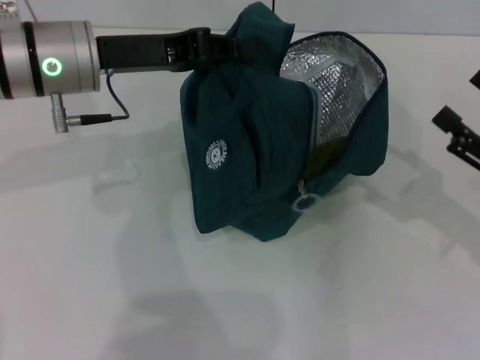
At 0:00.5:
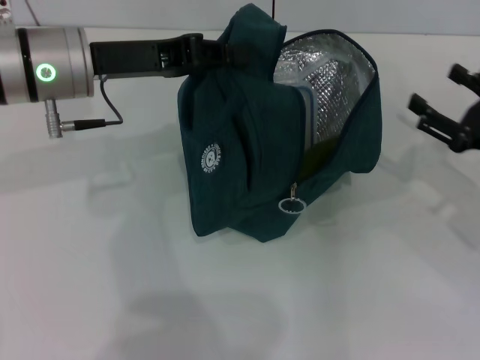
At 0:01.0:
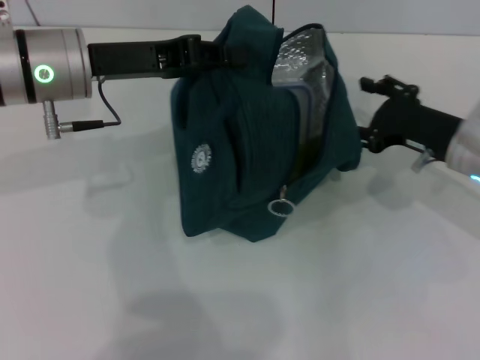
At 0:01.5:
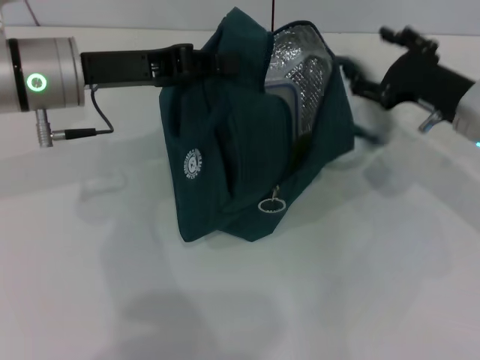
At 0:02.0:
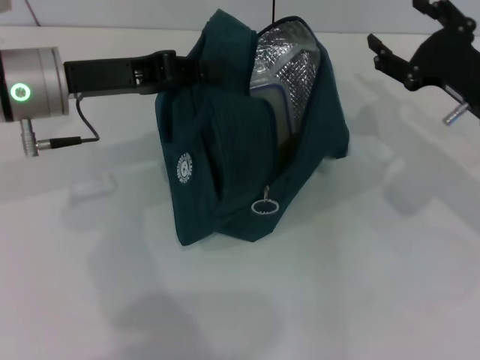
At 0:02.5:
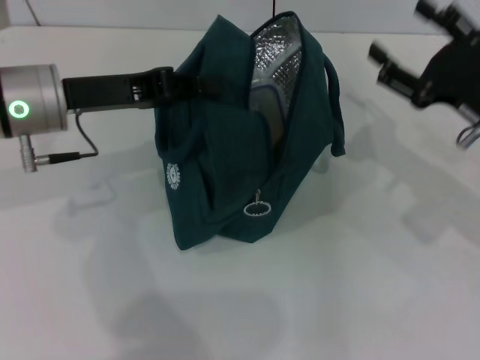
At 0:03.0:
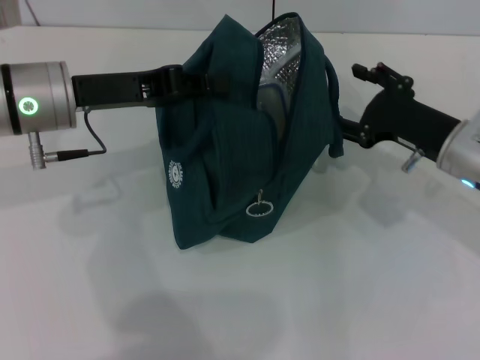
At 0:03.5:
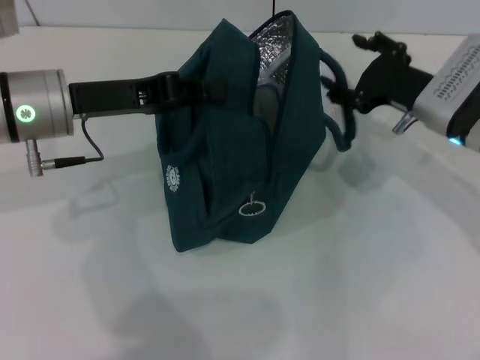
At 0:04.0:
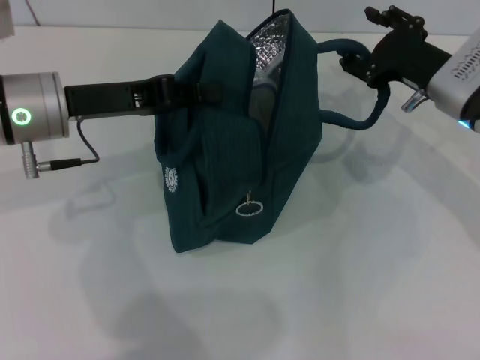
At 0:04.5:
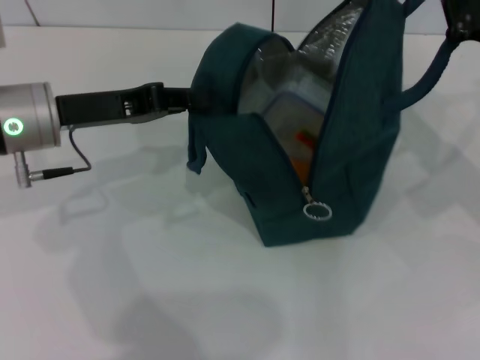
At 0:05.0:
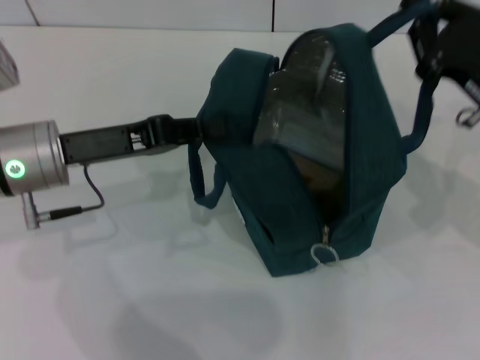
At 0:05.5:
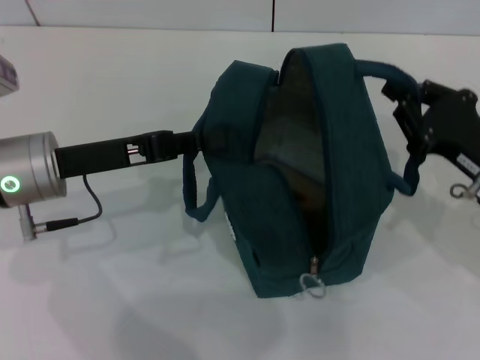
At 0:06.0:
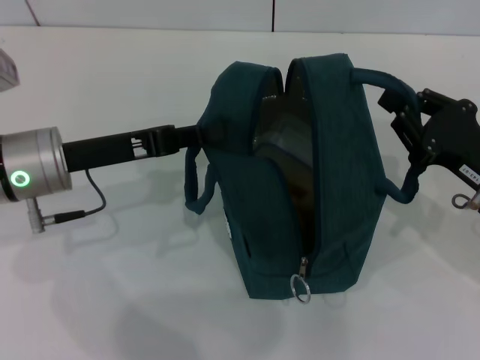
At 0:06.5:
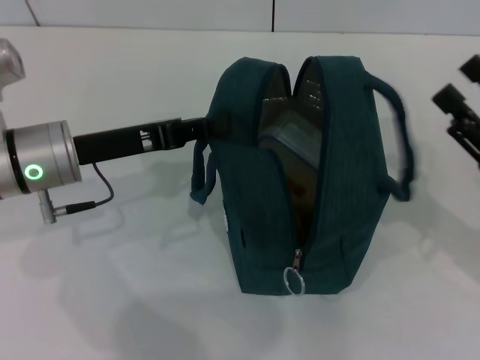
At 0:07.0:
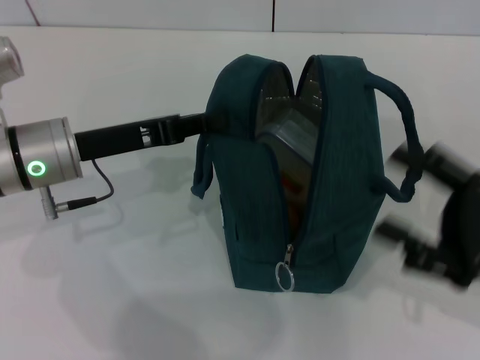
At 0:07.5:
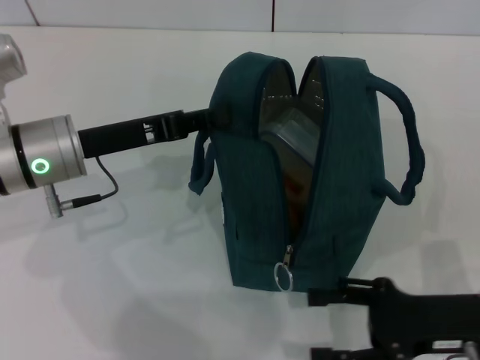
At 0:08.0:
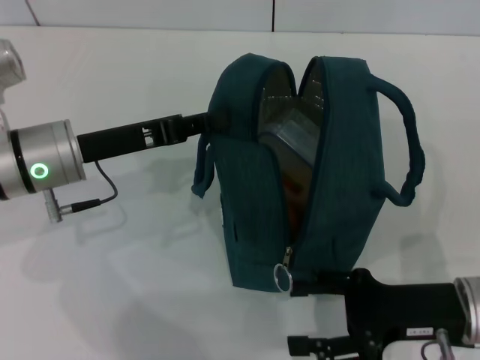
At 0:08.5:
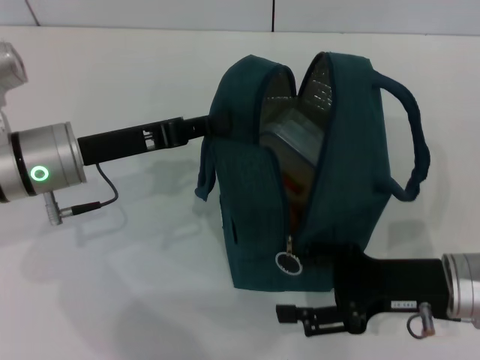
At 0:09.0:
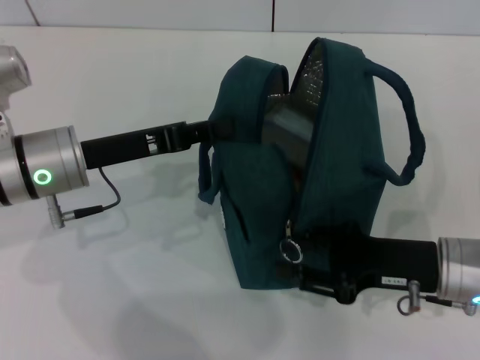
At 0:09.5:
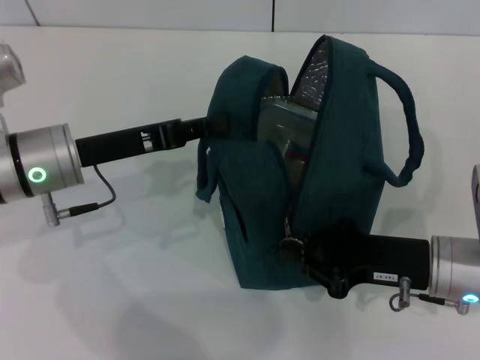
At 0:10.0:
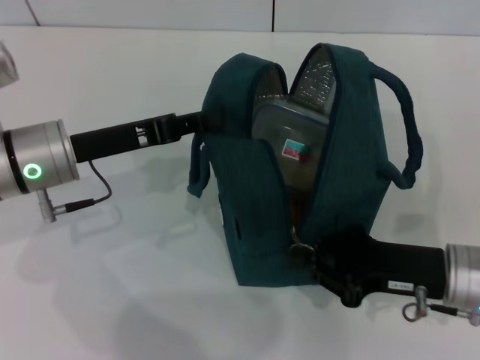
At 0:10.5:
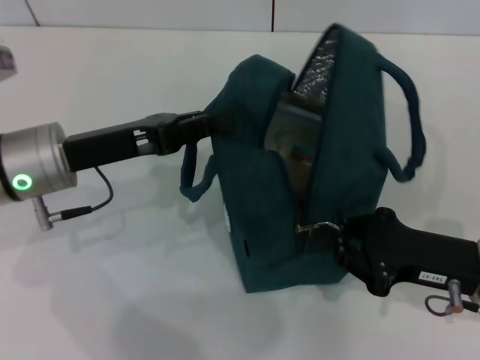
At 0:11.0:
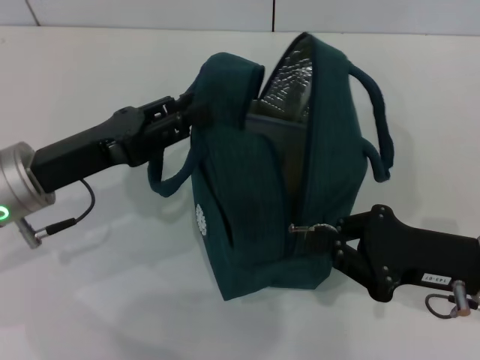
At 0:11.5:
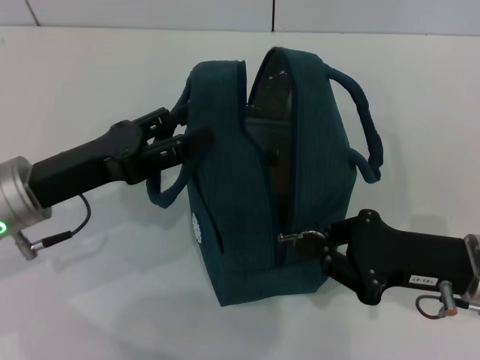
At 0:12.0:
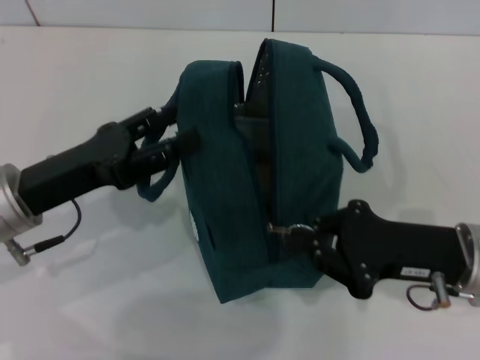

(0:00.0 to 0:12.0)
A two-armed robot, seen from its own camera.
Step, 0:00.0 - 0:06.0: Hold the lunch bag with your right hand.
0:00.0 - 0:02.0: The right gripper goes some 10 cm forward and to the left.
0:02.0 - 0:04.0: The right gripper shifts by some 5 cm.
0:04.0 - 0:06.0: The right gripper shifts approximately 10 cm backward, and closes up; the left gripper shifts by approximately 5 cm.
0:06.0 - 0:08.0: The right gripper ends up about 5 cm from where it was, and opens.
0:08.0 - 0:10.0: The right gripper closes up.
0:10.0 - 0:12.0: The left gripper shifts roughly 5 cm backward, and opens its fingers.

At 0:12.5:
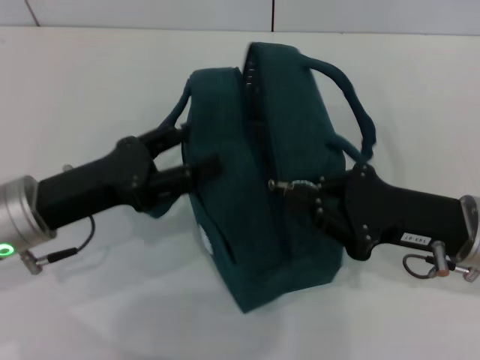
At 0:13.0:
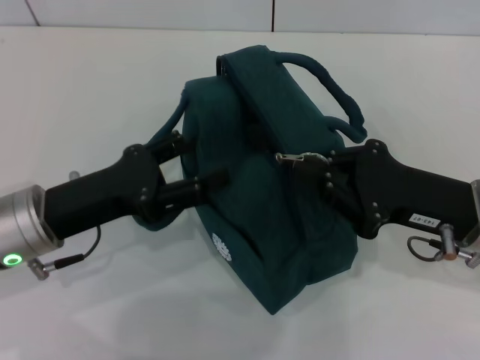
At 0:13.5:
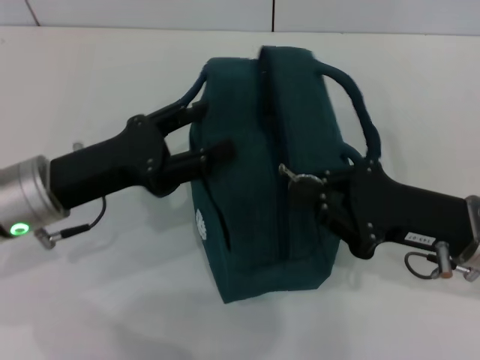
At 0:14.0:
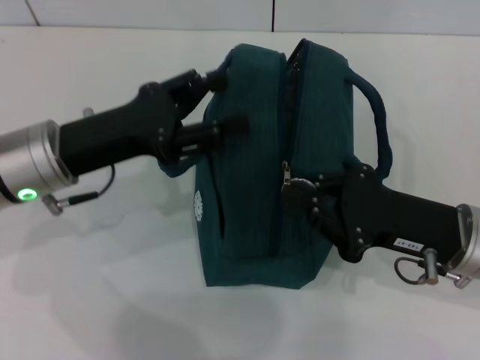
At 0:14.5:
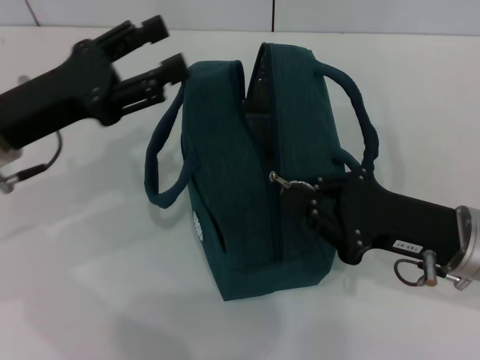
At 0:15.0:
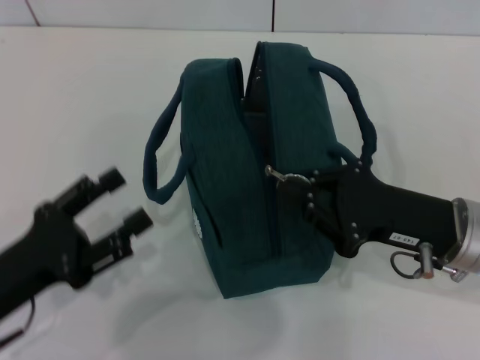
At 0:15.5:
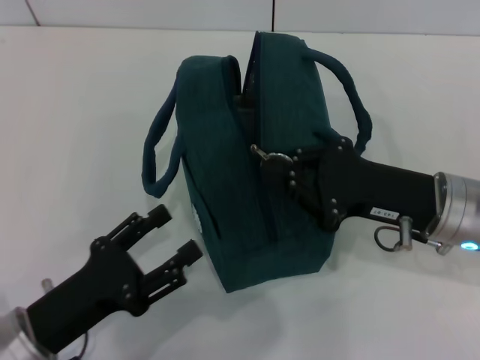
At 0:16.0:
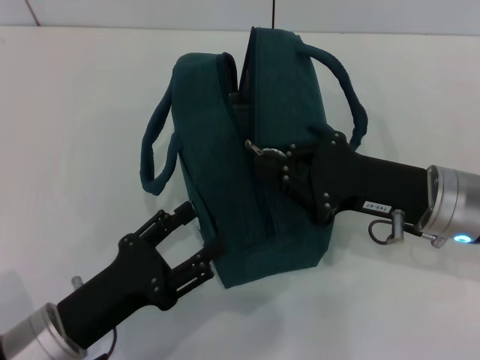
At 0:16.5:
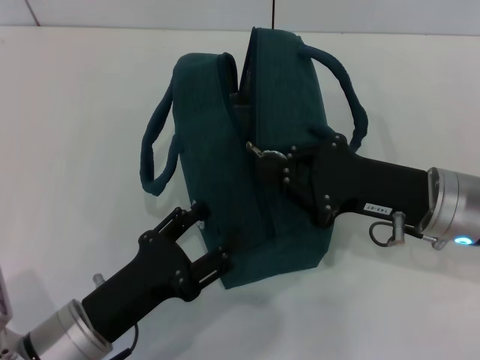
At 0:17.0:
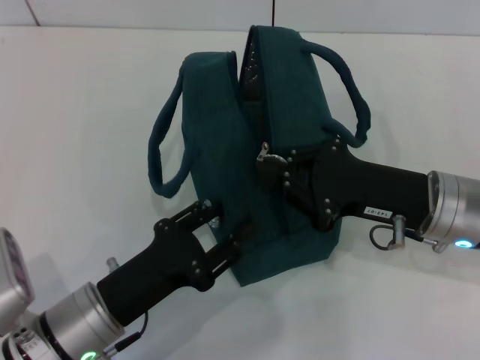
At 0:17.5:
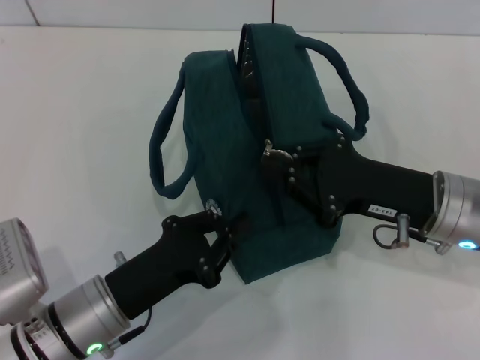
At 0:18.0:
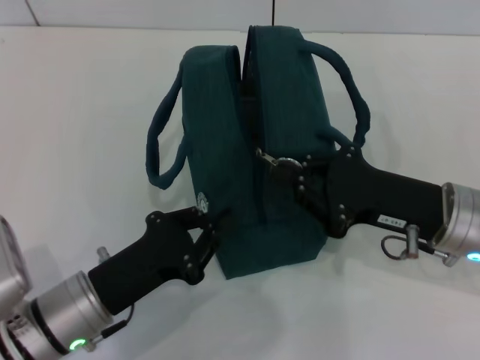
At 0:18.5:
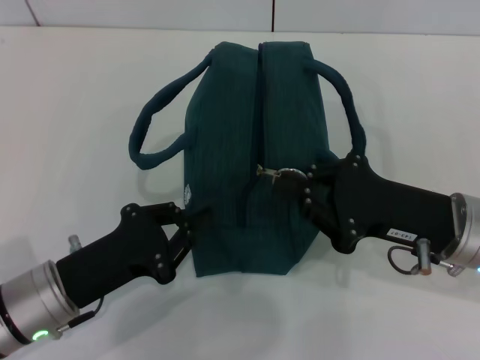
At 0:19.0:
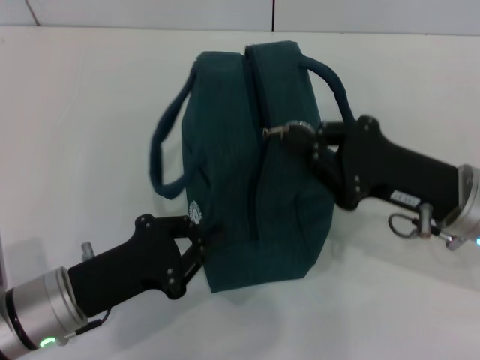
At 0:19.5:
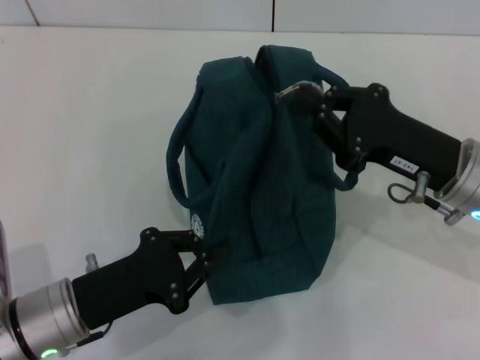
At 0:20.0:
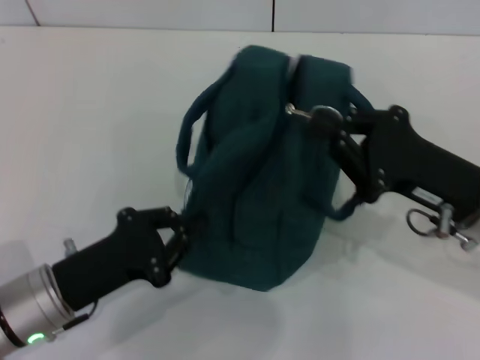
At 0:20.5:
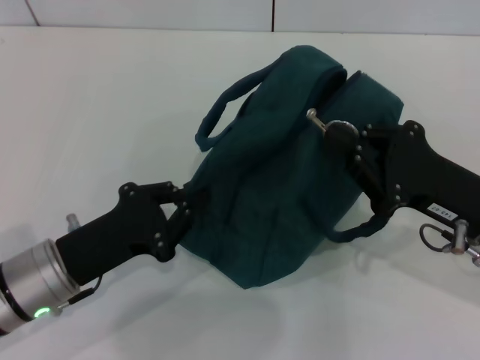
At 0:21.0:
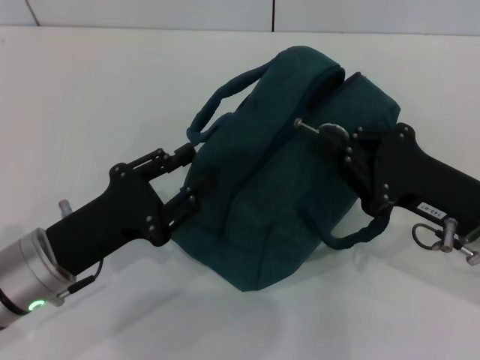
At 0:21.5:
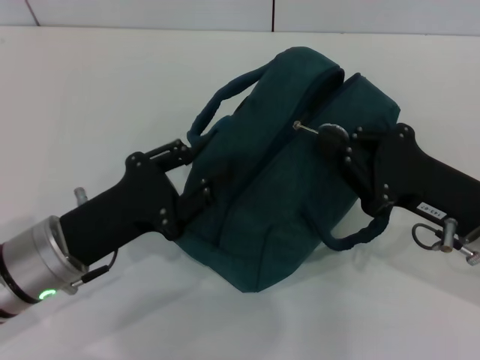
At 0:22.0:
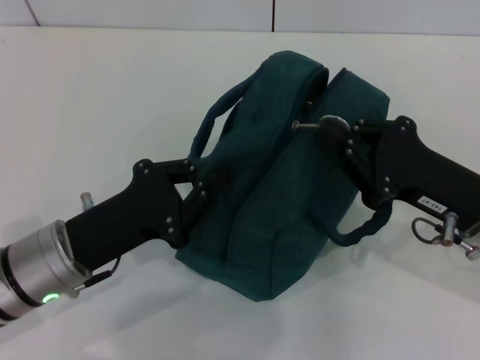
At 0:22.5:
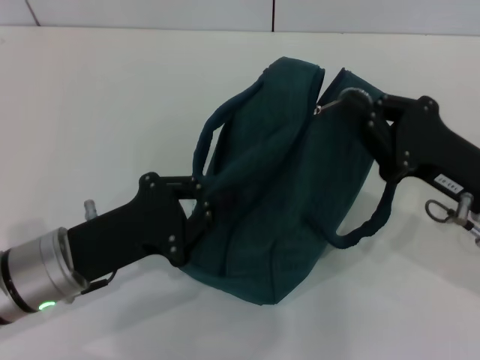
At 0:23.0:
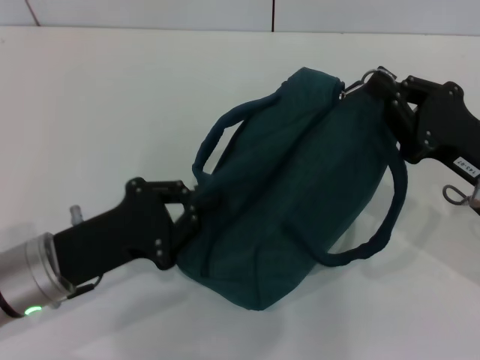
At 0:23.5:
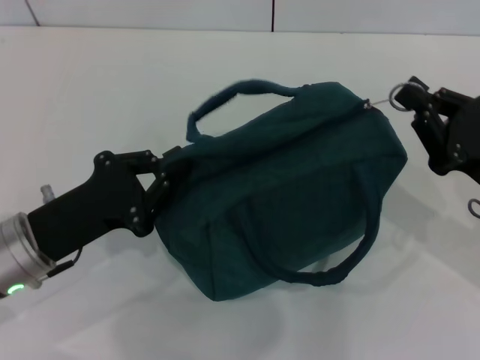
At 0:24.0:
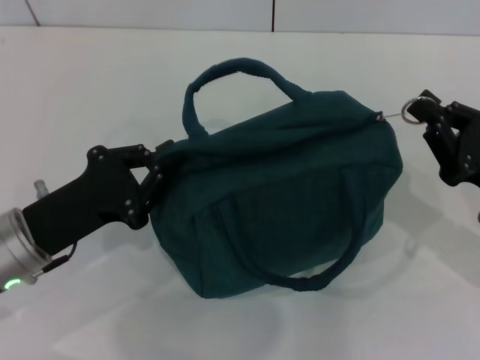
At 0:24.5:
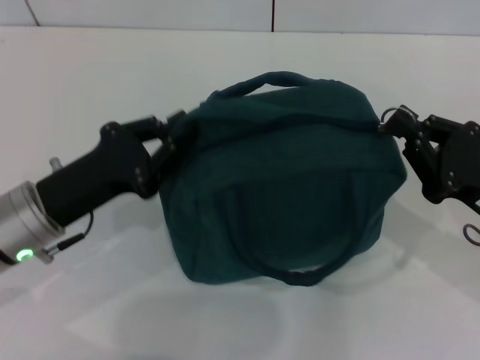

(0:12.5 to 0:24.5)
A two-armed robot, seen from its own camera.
0:12.5 - 0:14.5: The left gripper changes place by approximately 5 cm.
0:14.5 - 0:16.5: The left gripper travels backward, downward and to the right by some 20 cm.
0:16.5 - 0:18.5: The left gripper ends up some 5 cm from where it was, and closes.
0:20.5 - 0:22.5: The left gripper opens and closes again.

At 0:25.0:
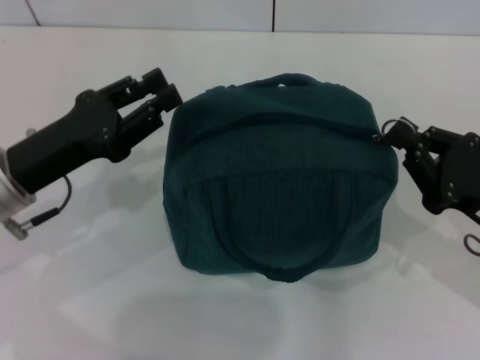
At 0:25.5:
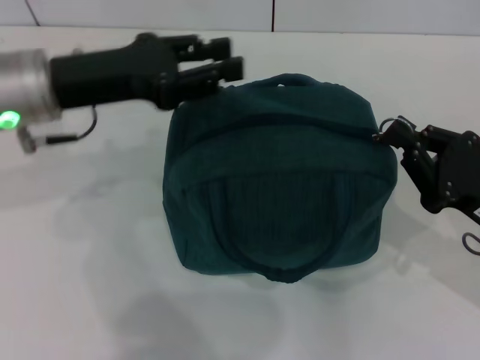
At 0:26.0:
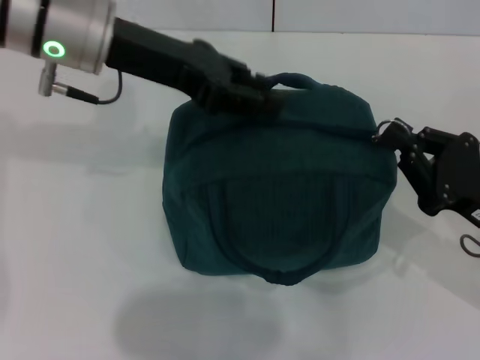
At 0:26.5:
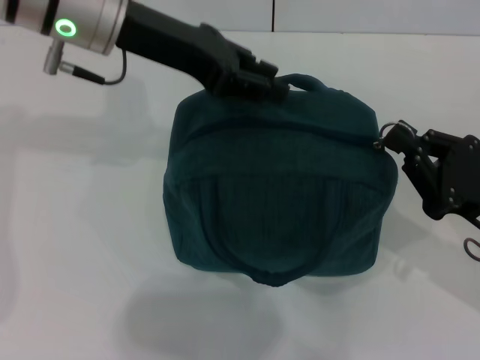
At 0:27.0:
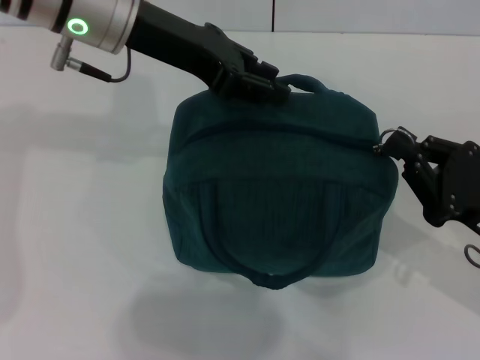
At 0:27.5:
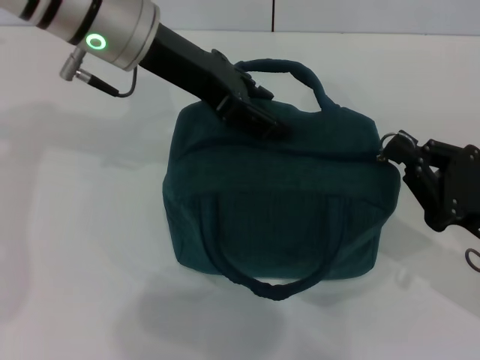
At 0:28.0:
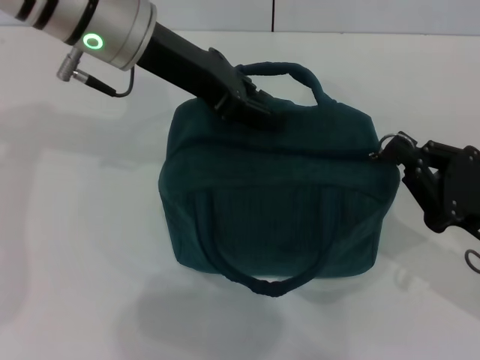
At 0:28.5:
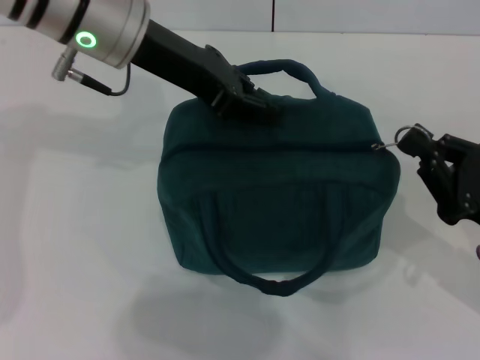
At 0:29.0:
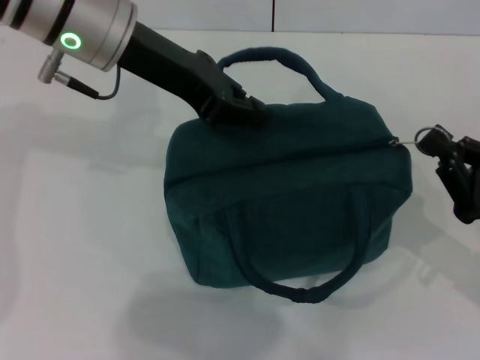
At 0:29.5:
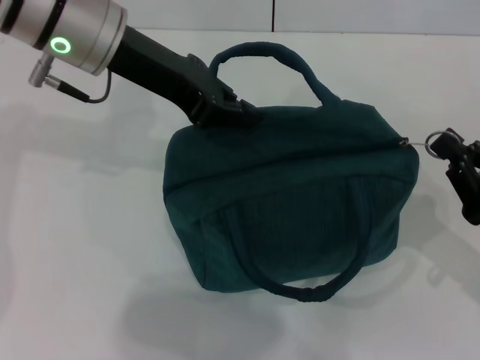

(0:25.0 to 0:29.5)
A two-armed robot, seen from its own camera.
0:25.0 - 0:27.0: The left gripper is displaced upward, forward and to the right by roughly 20 cm.
0:27.0 - 0:29.5: The left gripper closes its fingers.
